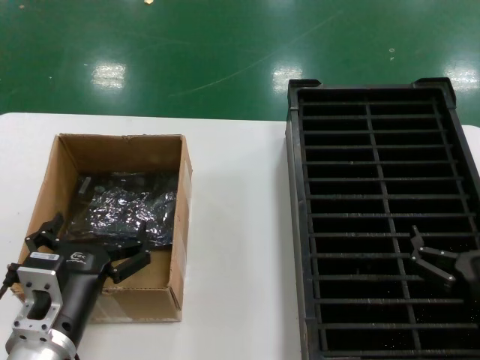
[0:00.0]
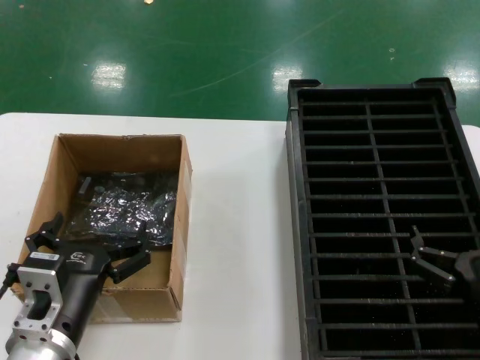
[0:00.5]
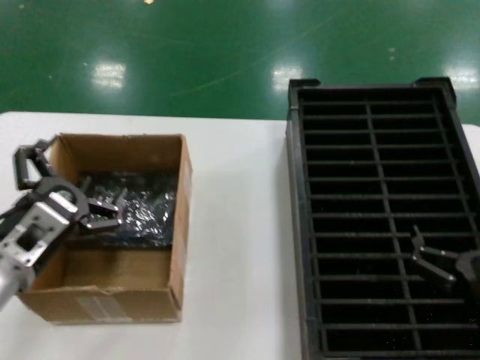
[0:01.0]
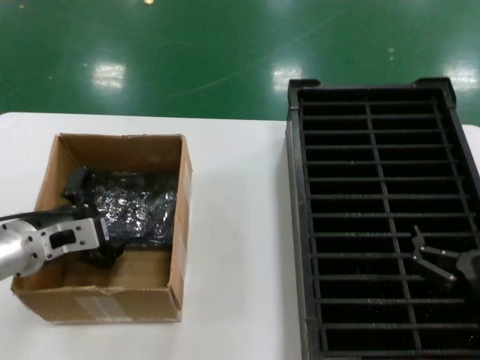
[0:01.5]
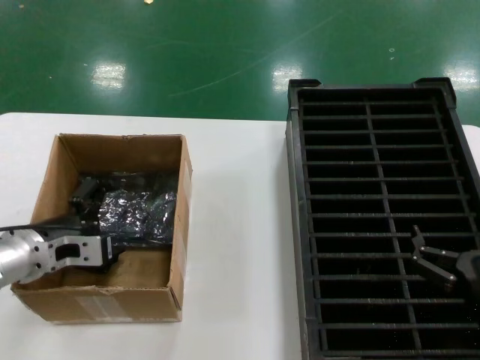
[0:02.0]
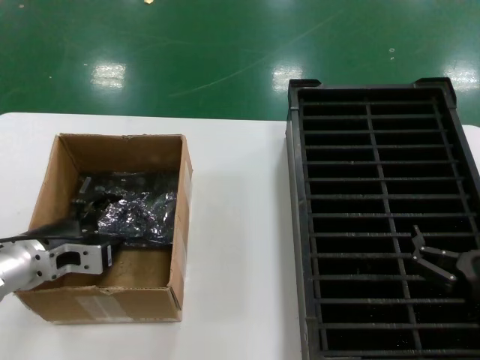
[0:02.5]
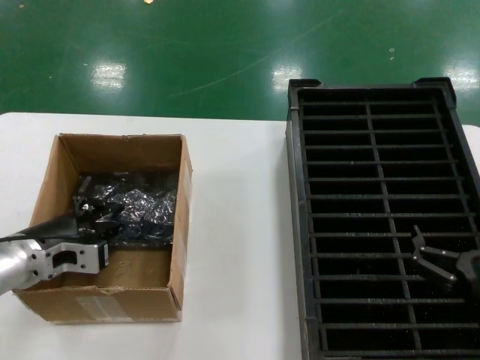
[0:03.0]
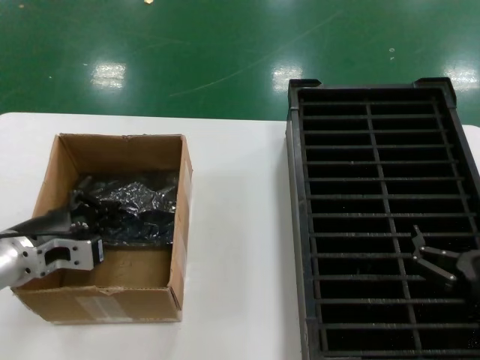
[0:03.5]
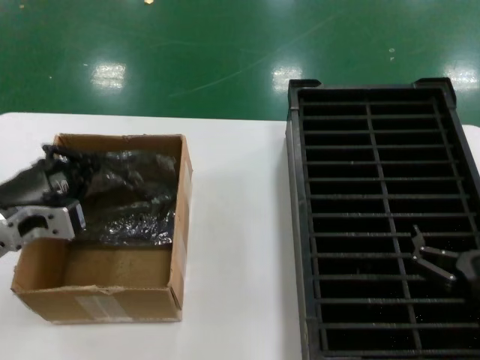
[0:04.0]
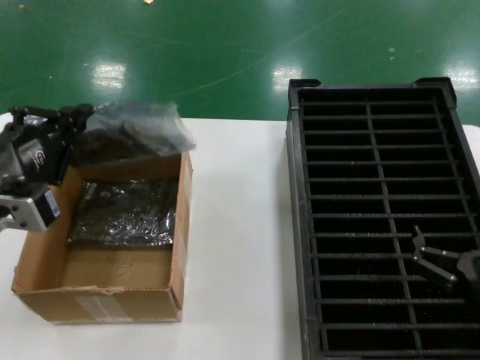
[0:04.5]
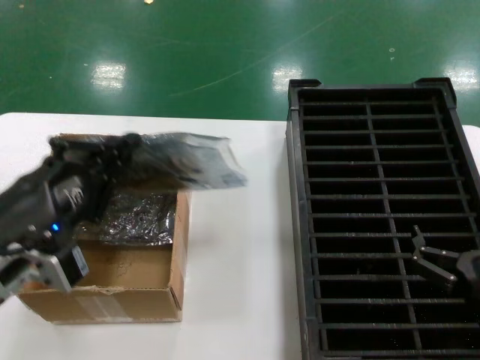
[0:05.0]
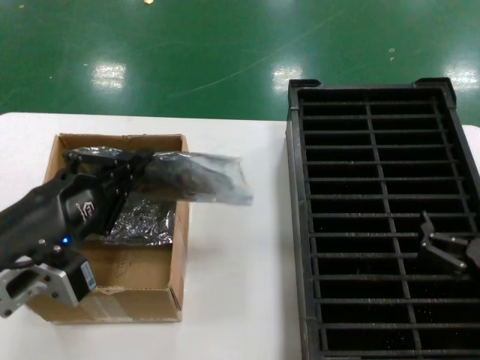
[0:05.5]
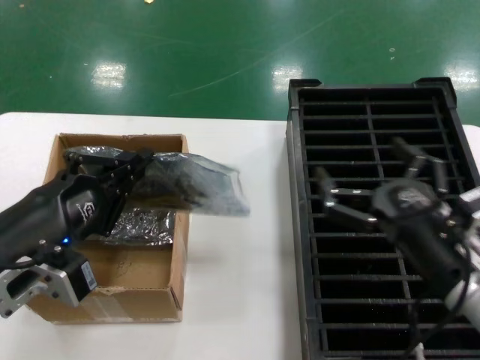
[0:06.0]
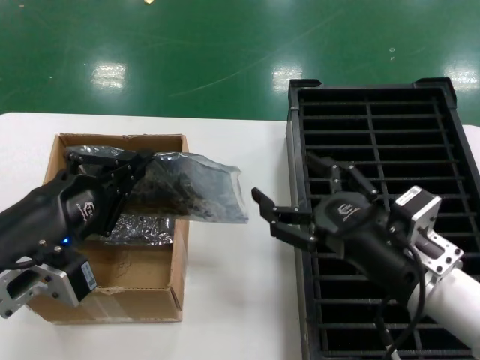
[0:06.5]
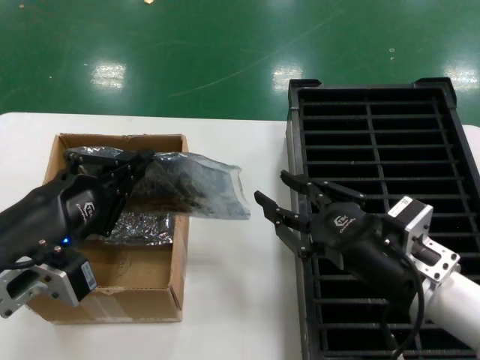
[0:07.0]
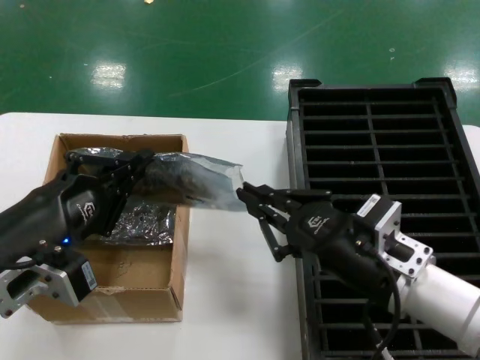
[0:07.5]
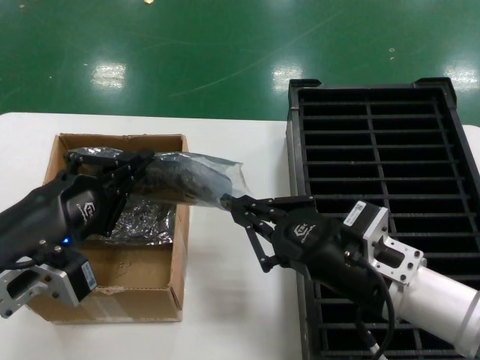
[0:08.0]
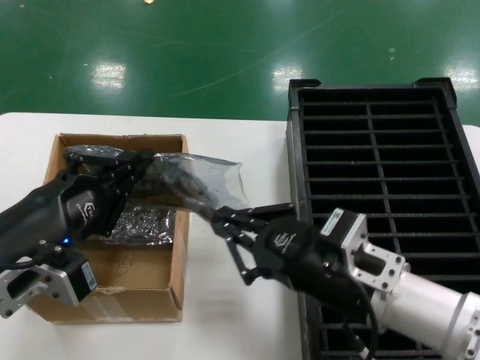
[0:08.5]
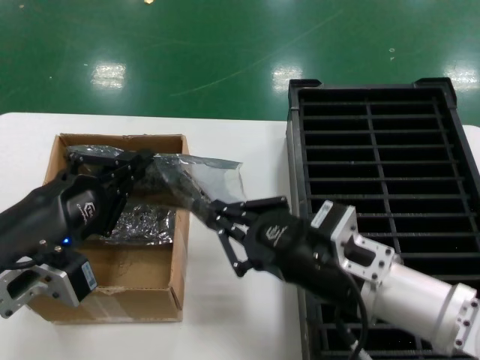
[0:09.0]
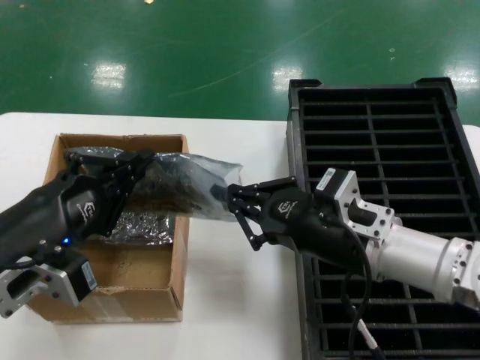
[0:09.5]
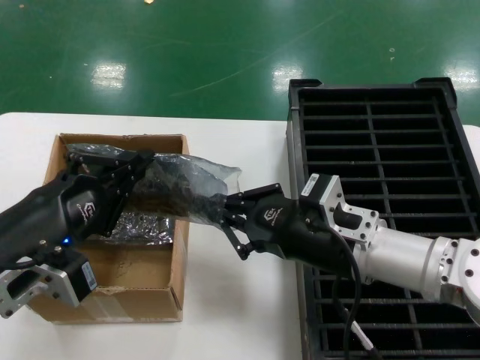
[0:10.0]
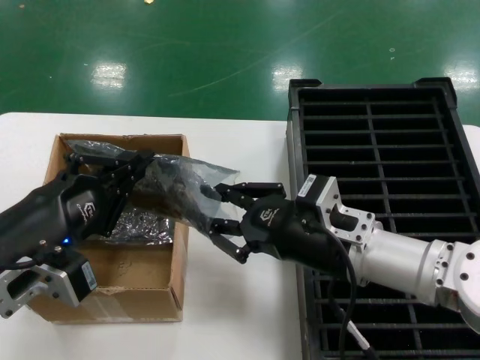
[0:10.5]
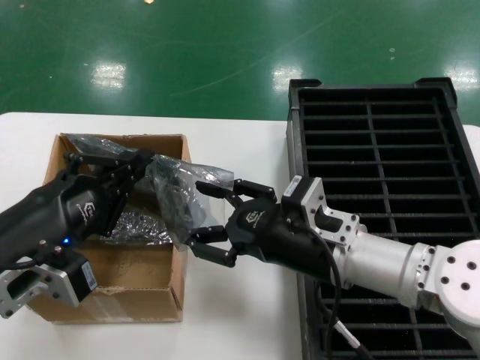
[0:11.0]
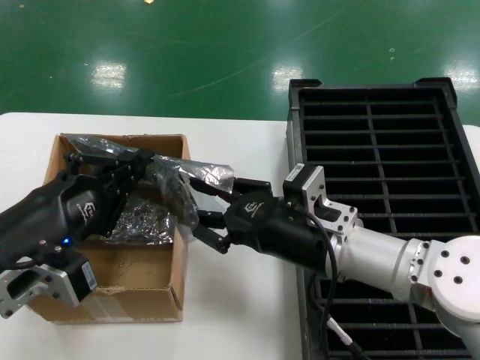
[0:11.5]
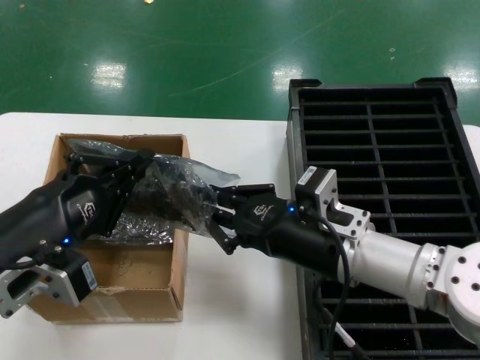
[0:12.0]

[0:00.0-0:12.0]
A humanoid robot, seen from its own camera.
Task of the whole recording: take out graphics card from box remove packaging put into black container.
Step, 0:00.0 to 0:03.0: Grasp the bag.
Step, 0:03.5 to 0:05.0: Lift the bag.
0:00.0 to 0:02.0: The left hand moves forward, to the left and upward, some 20 cm.
0:02.0 to 0:04.0: The left hand shifts by about 5 cm.
0:04.0 to 0:06.0: The right hand travels upward by roughly 5 cm. Meanwhile the left hand is displaced backward and to the right by about 10 cm.
0:06.0 to 0:08.0: The right hand shifts roughly 5 cm to the left.
0:08.0 to 0:10.0: The right hand shifts roughly 5 cm forward.
0:10.0 to 0:12.0: There are only small adjustments of the hands.

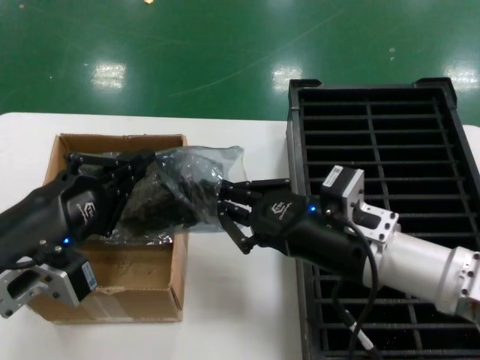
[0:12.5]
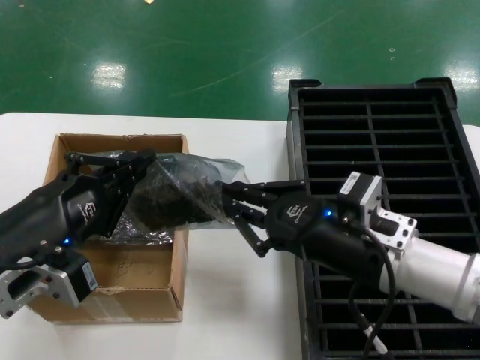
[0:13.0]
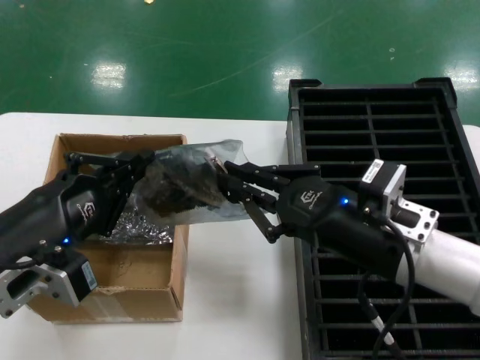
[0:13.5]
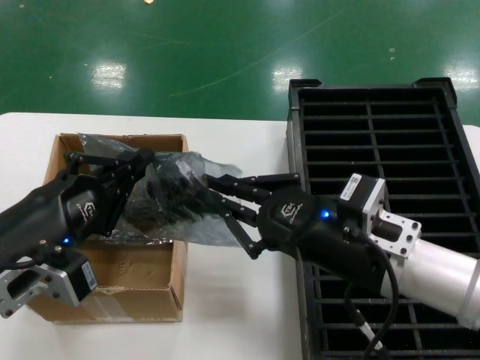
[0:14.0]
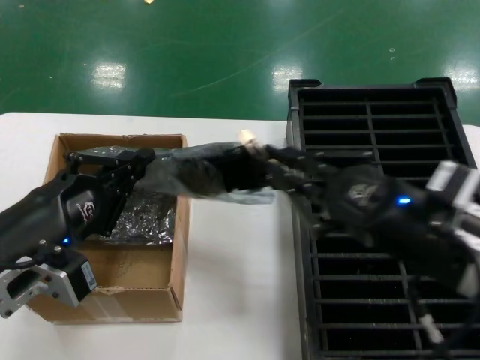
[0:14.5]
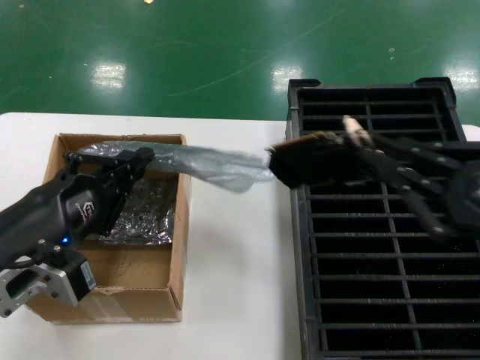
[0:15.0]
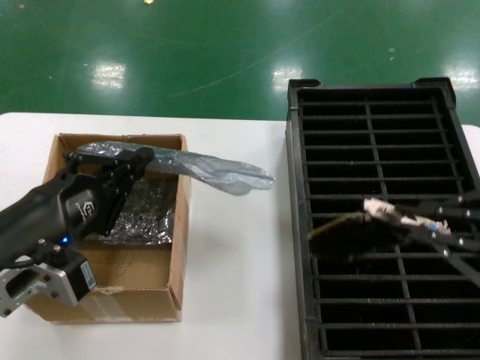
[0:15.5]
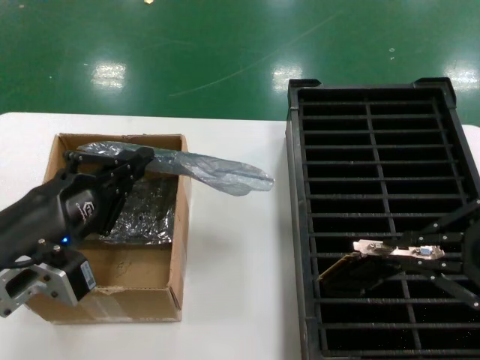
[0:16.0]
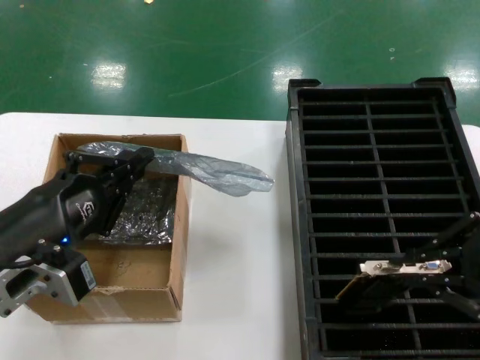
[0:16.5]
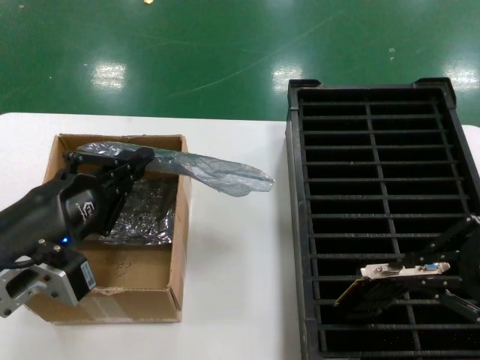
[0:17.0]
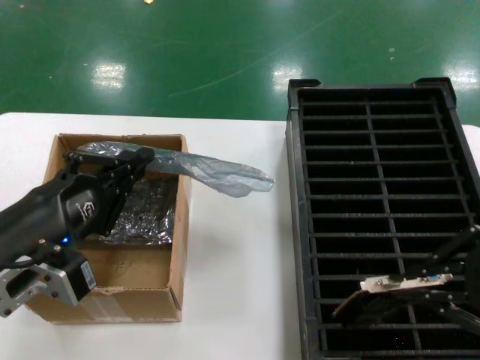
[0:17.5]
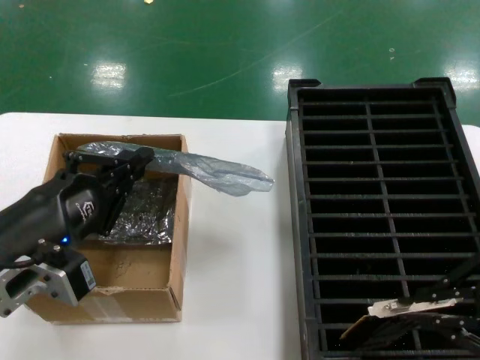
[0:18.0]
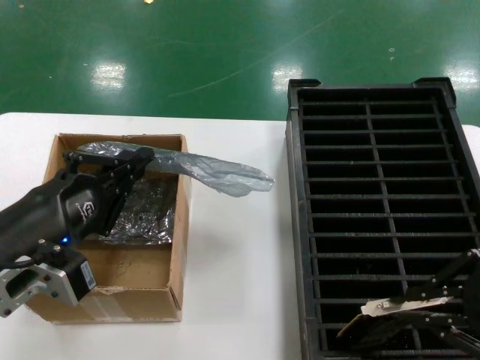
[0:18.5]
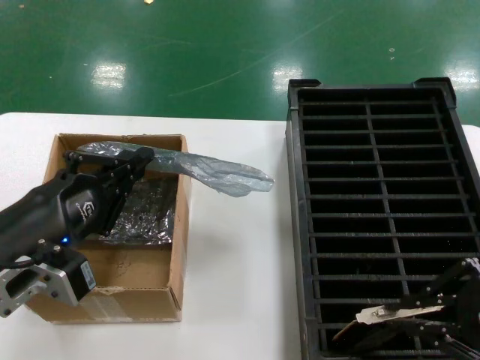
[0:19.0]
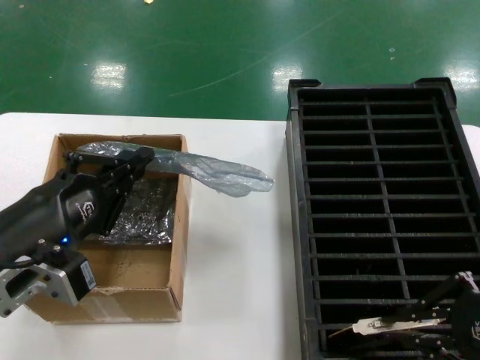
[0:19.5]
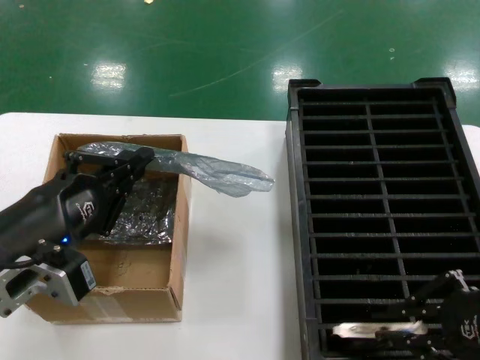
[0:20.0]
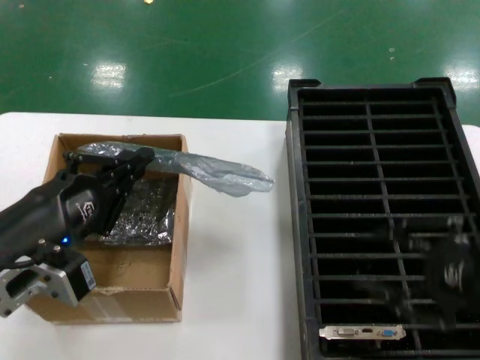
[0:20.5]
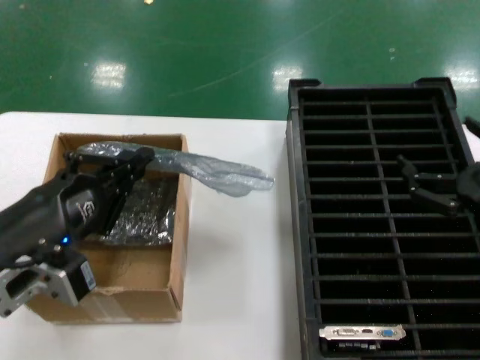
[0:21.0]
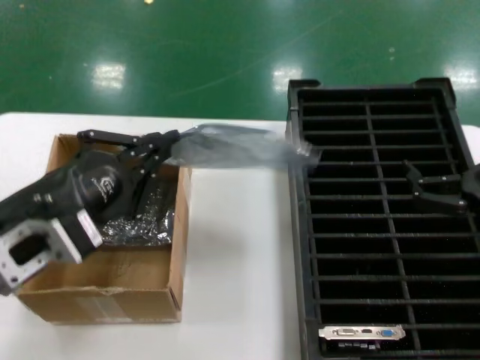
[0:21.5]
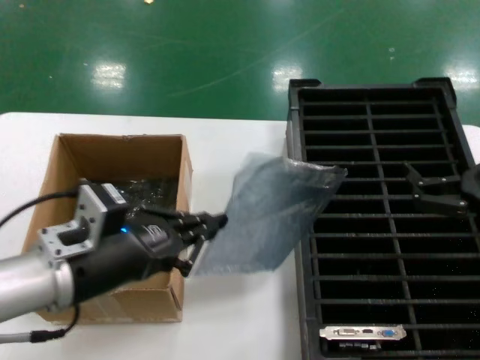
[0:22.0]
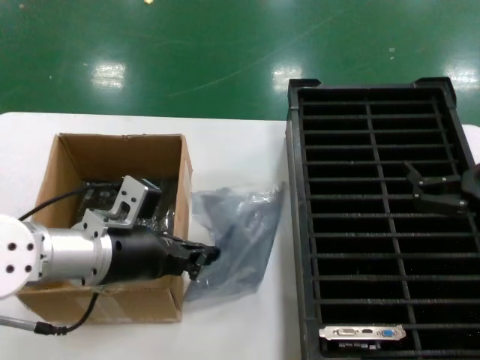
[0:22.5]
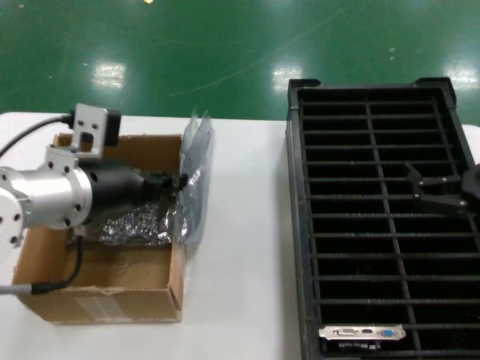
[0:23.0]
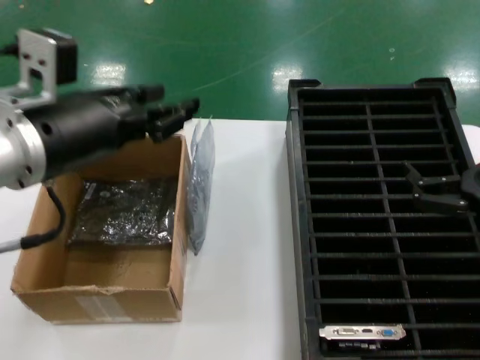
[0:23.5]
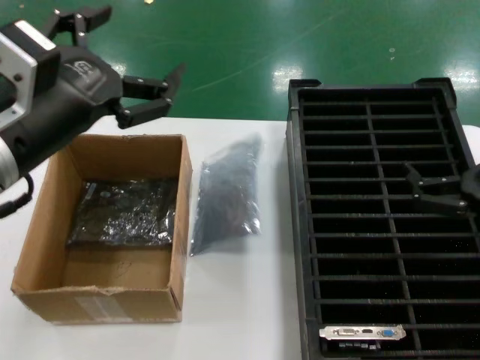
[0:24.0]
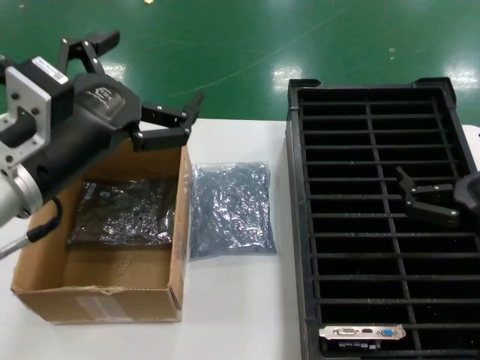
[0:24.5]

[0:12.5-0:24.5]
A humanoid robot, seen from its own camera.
Task of the whole recording: take out graphics card from box remove packaging put into black container.
Step, 0:12.5 to 0:15.0: Take out the hard disk of the bag.
Step, 0:15.5 to 0:20.0: Place the hard disk in the hard disk enclosure.
0:12.5 to 0:14.5: The right hand is displaced to the right and backward by approximately 10 cm.
0:14.5 to 0:16.5: The right hand shifts some 15 cm to the right and upward.
0:16.5 to 0:18.5: There are only small adjustments of the hands.
0:18.5 to 0:20.5: The hands stay close to where they were, moving slightly.
0:20.5 to 0:22.5: The right hand travels downward by roughly 5 cm, while the left hand shifts roughly 10 cm forward.
0:22.5 to 0:24.5: The left hand shifts some 15 cm upward and backward.

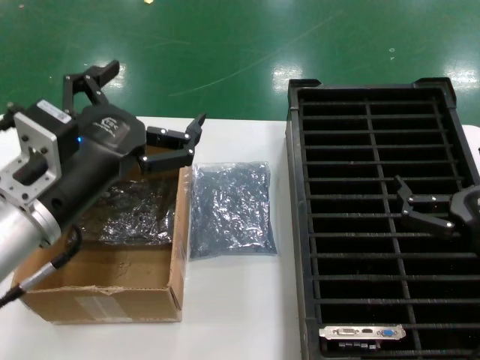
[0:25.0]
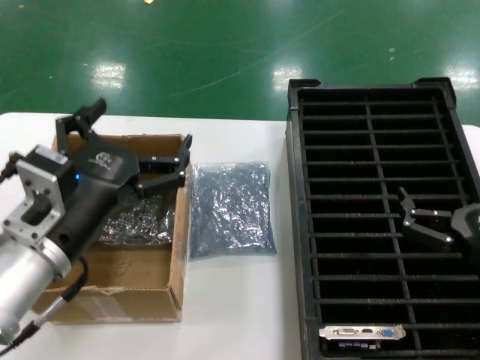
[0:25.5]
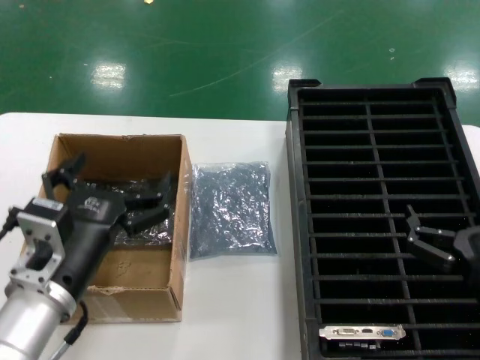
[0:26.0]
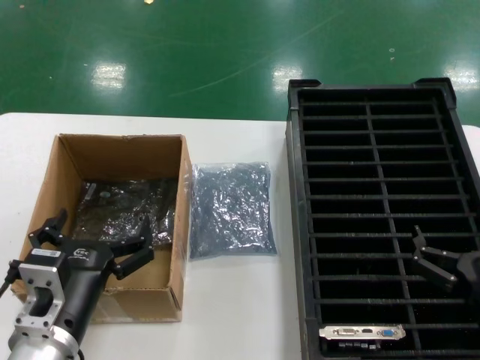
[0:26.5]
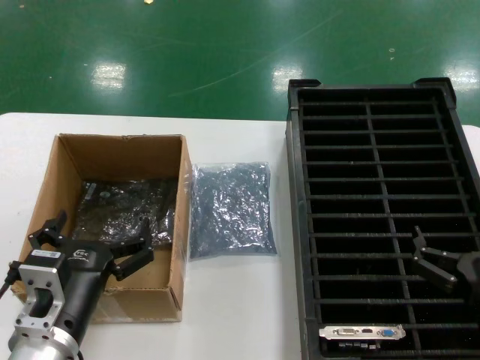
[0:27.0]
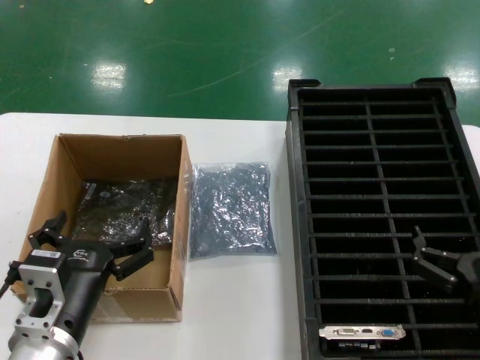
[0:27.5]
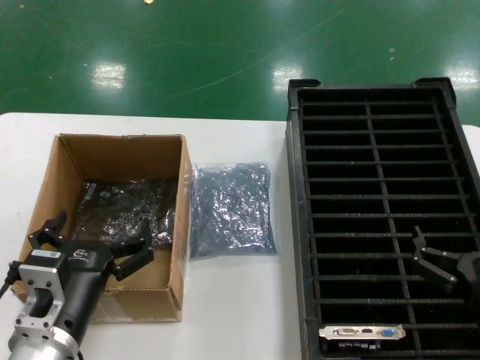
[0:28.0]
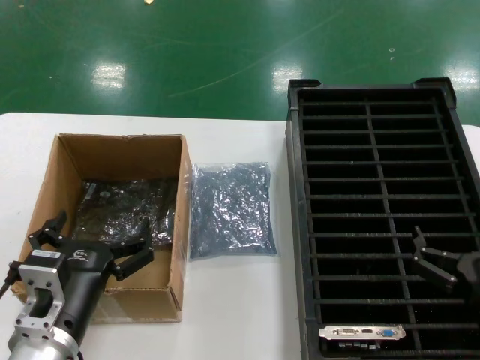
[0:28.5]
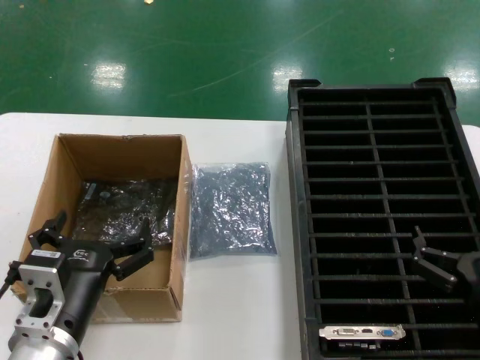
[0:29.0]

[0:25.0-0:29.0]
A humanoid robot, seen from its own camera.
Task of the whole recording: take out graphics card from box remove packaging put into black container.
0:25.0 to 0:27.0: The left hand goes roughly 15 cm downward, while the right hand is displaced downward by some 10 cm.
0:27.0 to 0:29.0: Both hands stay put.
